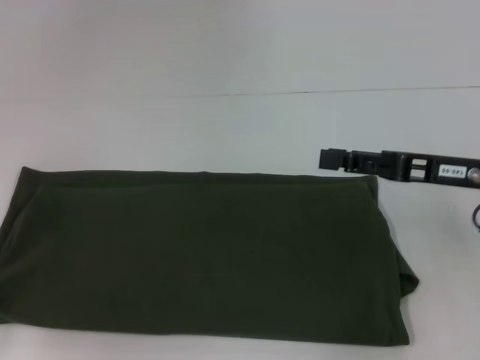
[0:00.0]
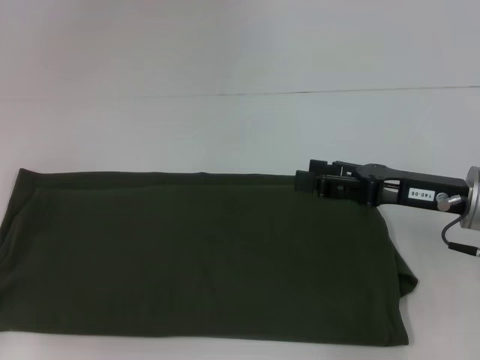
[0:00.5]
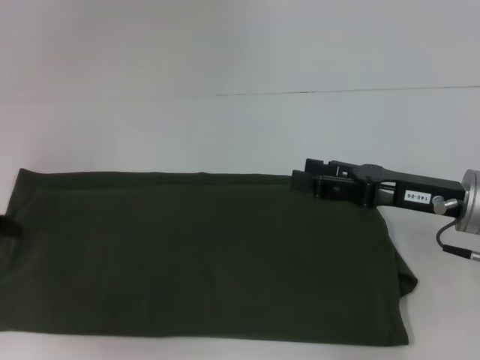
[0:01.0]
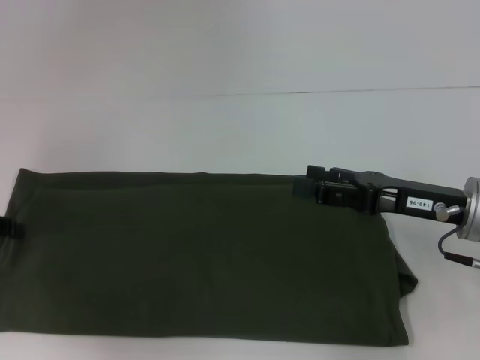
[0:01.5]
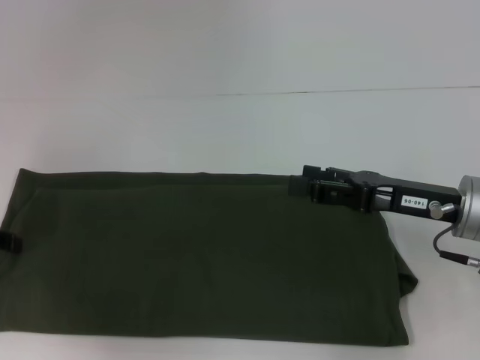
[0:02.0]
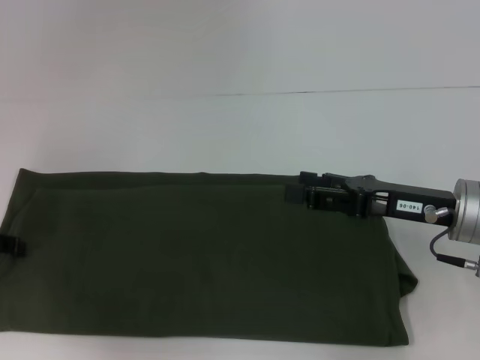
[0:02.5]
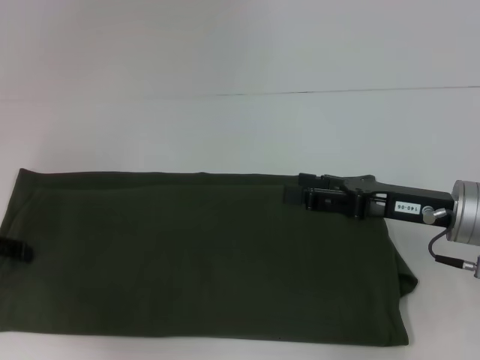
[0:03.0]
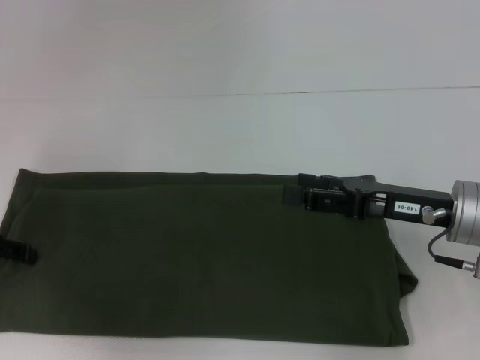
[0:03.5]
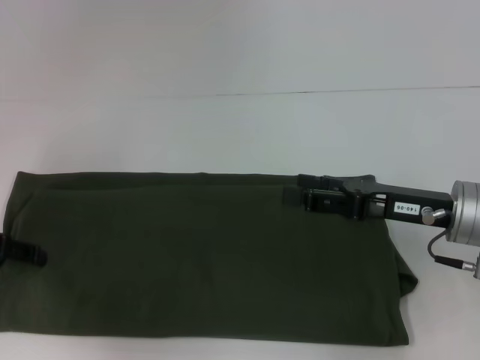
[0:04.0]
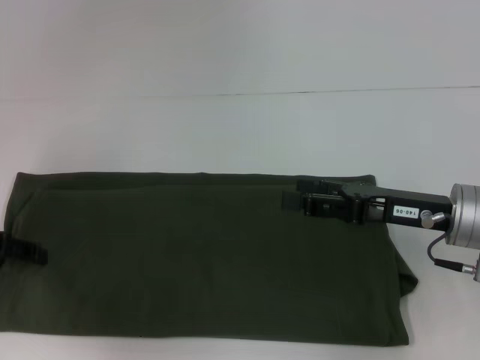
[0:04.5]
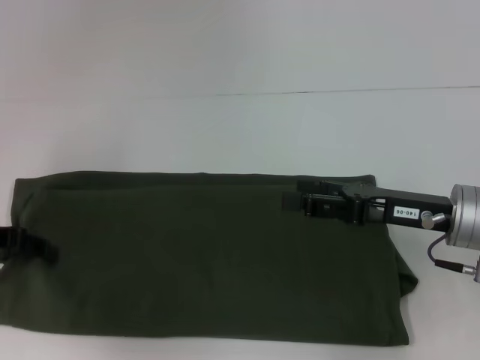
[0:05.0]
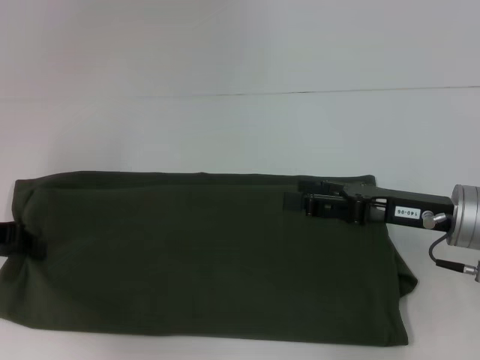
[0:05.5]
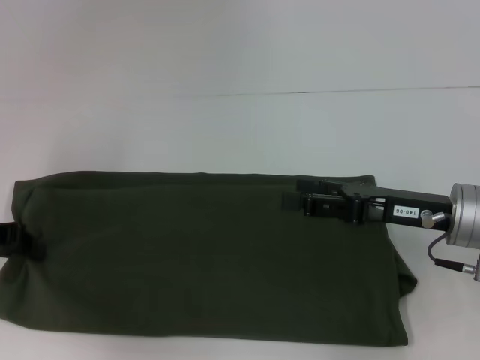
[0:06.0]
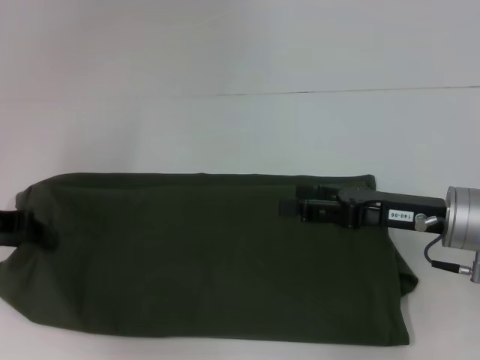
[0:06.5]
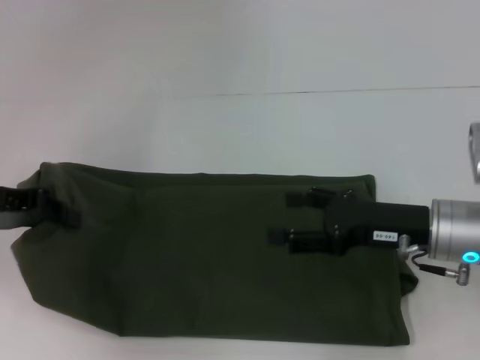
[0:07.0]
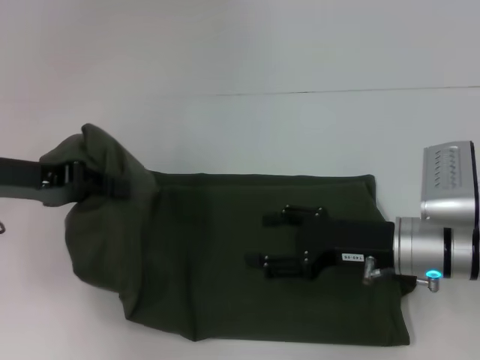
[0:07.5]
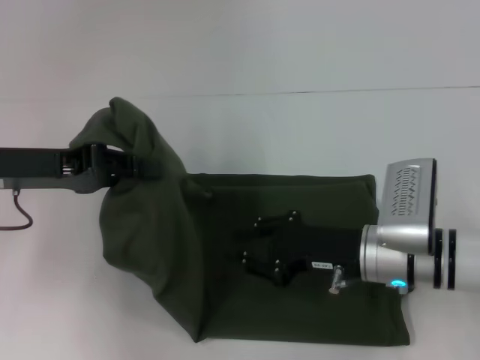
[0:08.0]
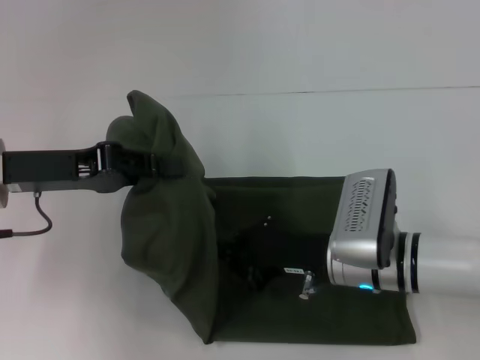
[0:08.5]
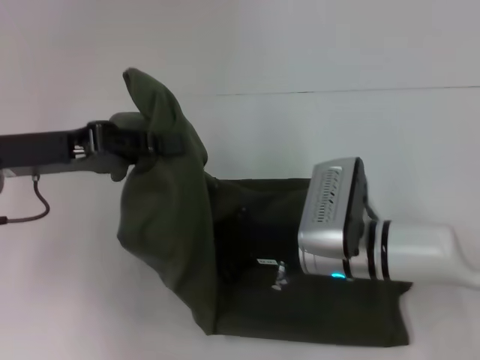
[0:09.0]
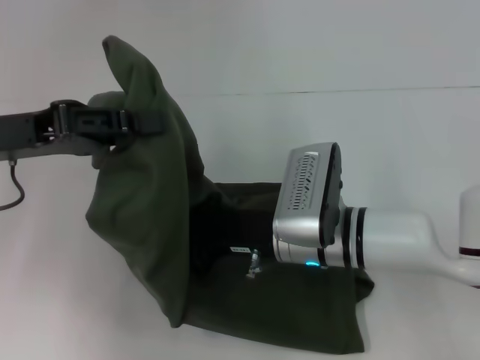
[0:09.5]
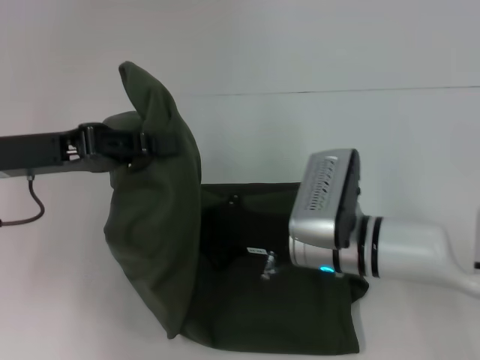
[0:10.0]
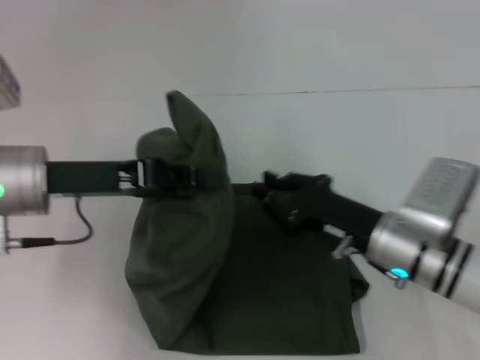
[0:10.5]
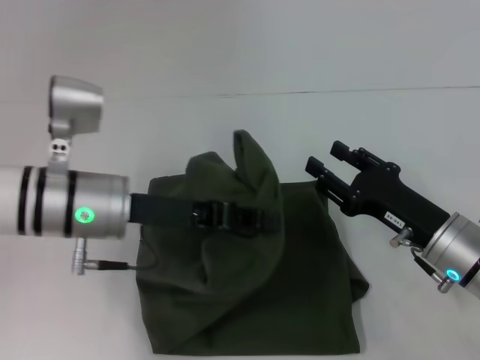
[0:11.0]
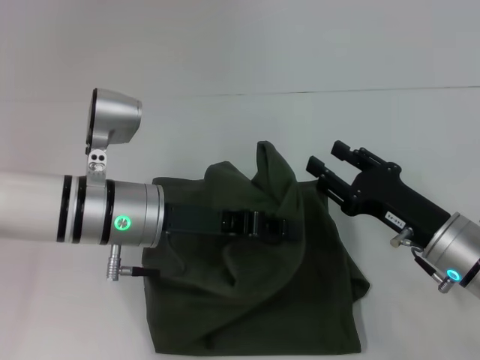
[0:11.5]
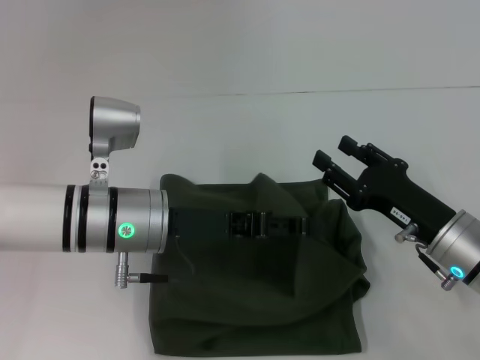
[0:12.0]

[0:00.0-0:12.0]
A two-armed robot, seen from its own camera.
0:00.0 to 0:02.0: The left gripper heads forward, covering approximately 5 cm, and opens.
0:02.0 to 0:04.0: The grippers make only small movements.
0:04.0 to 0:06.0: The left gripper closes its fingers.
0:06.0 to 0:08.0: The left gripper travels to the right by roughly 5 cm. The right gripper moves to the left and downward, about 10 cm, and closes up.
0:08.0 to 0:10.0: The right gripper travels to the left by roughly 5 cm, and closes.
0:10.0 to 0:12.0: The right gripper moves to the right, roughly 15 cm, and opens its fingers; the left gripper heads to the right and downward, covering approximately 15 cm.

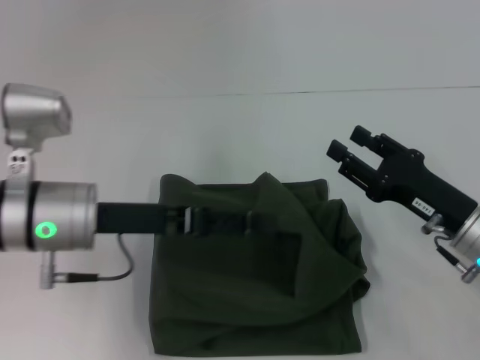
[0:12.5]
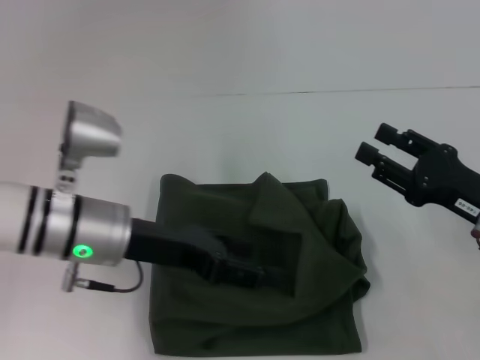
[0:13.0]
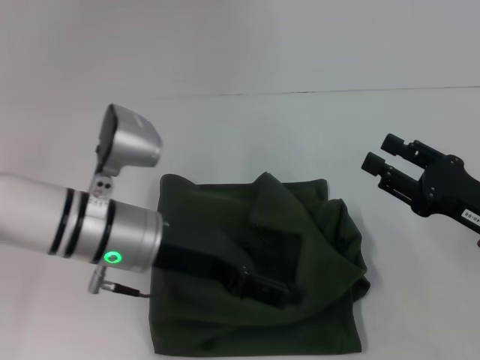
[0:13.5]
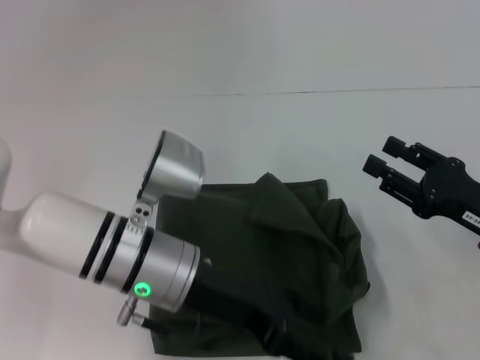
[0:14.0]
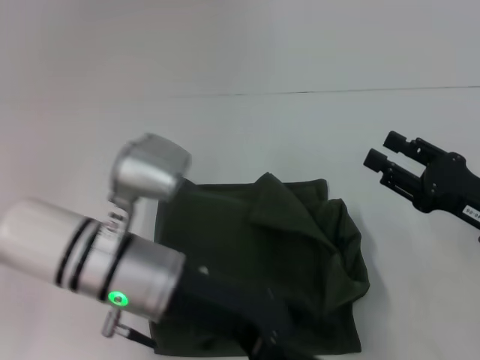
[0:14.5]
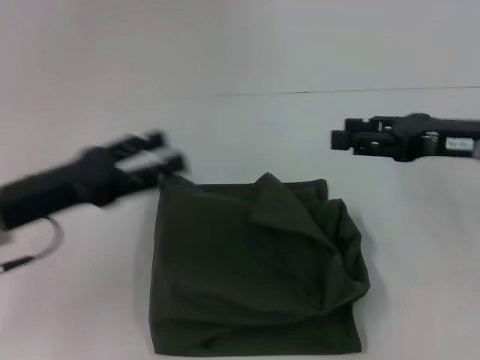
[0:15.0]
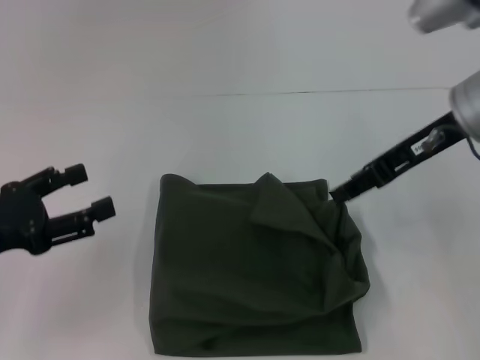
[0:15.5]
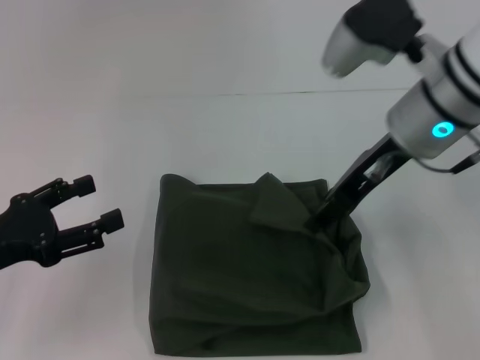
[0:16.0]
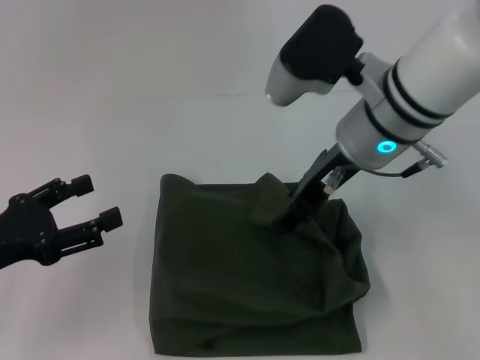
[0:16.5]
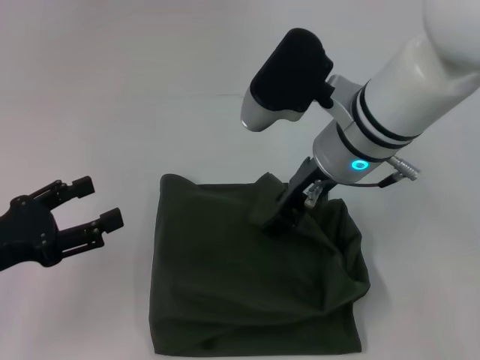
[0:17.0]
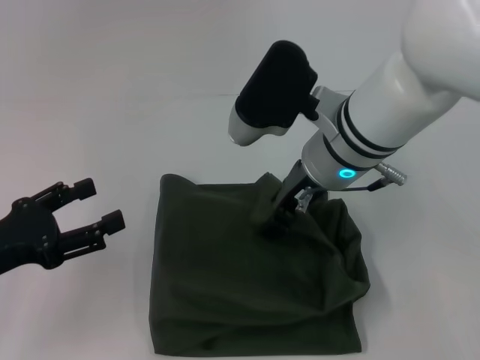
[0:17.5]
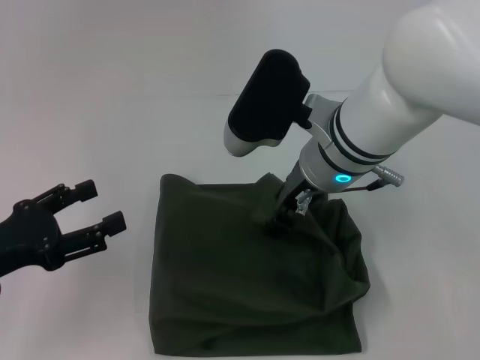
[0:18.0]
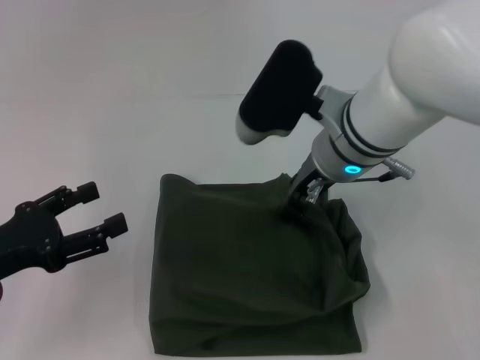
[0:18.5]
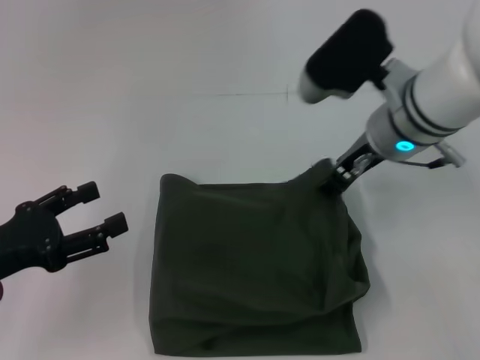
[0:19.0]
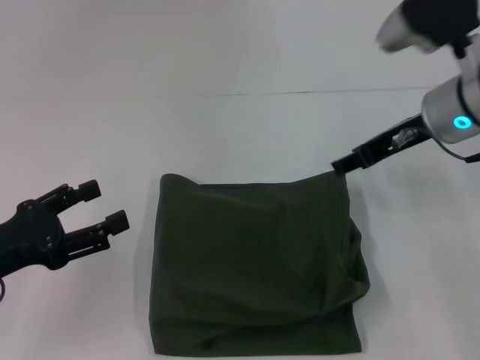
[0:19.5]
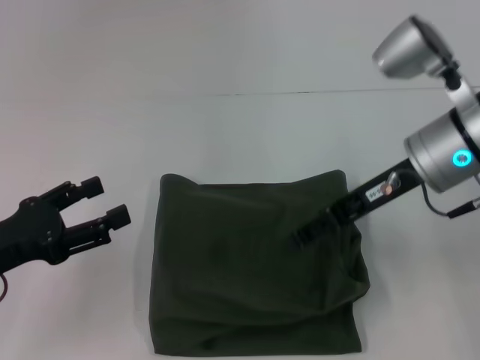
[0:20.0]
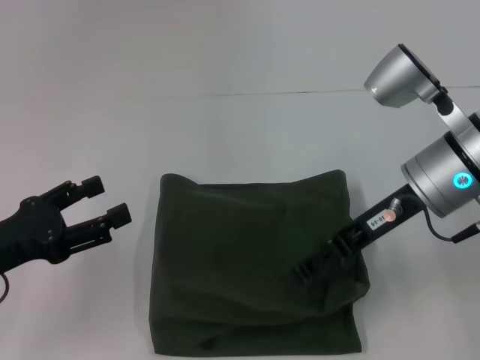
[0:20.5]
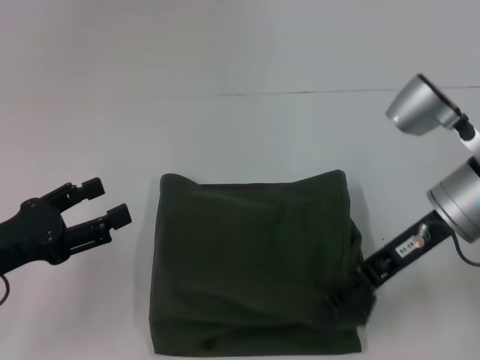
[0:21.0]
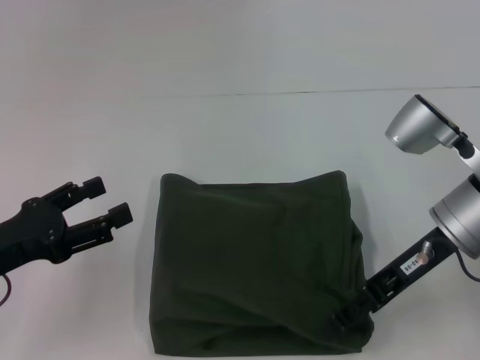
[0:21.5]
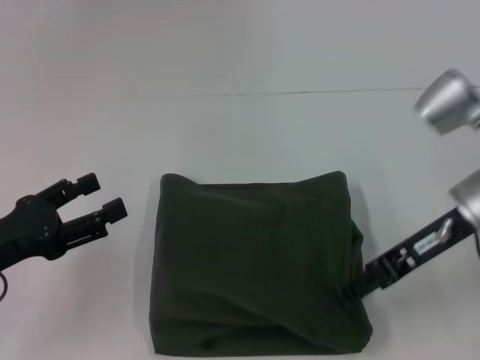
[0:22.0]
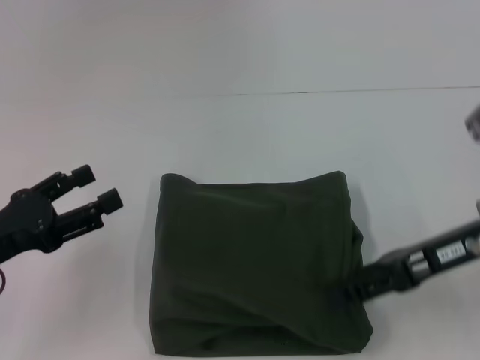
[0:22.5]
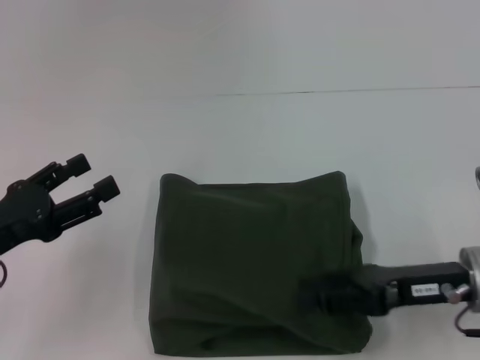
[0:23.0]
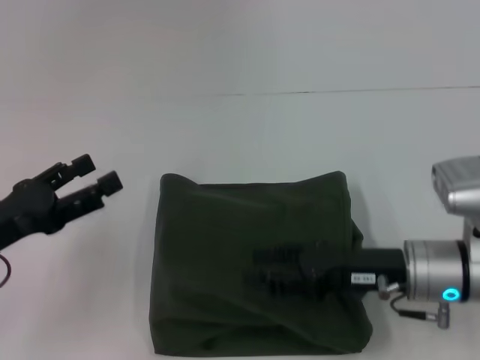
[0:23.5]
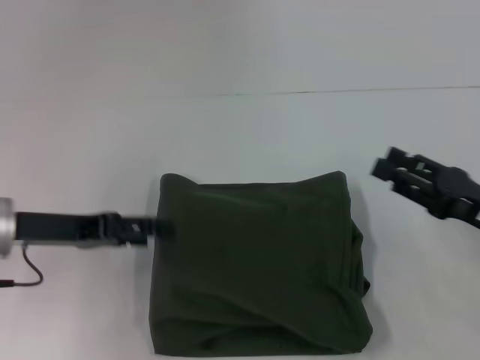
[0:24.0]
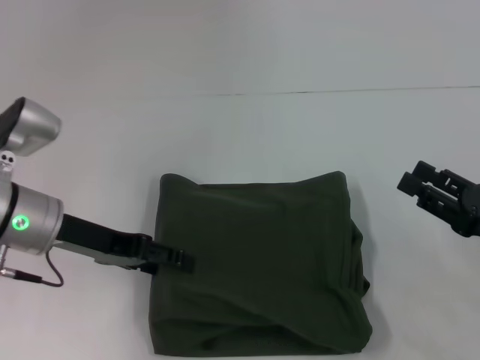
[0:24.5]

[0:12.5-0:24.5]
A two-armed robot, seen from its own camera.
Step, 0:12.5 to 0:19.5: Fold the clothes with your left hand.
0:12.5 to 0:14.5: The left gripper moves to the right, approximately 5 cm.
0:14.5 to 0:16.5: The right gripper shifts some 25 cm to the left, upward and forward. The left gripper heads to the left, covering about 20 cm.
0:16.5 to 0:18.5: The grippers stay close to where they were, moving slightly.
0:18.5 to 0:20.5: The right gripper moves to the right, approximately 10 cm.
0:20.5 to 0:22.5: The right gripper goes some 5 cm to the right.
0:22.5 to 0:24.5: The left gripper travels forward and to the right by approximately 10 cm. The right gripper travels downward, to the right and backward by some 10 cm.

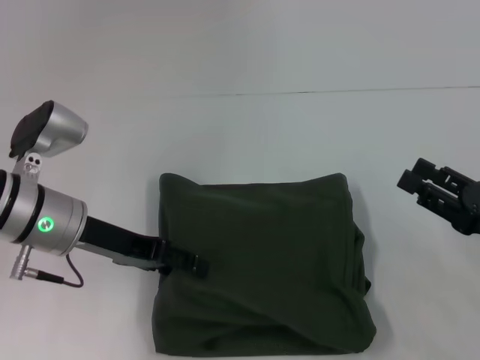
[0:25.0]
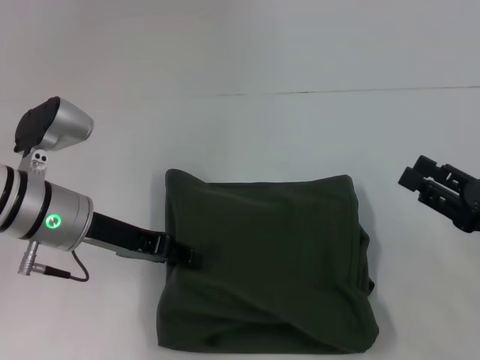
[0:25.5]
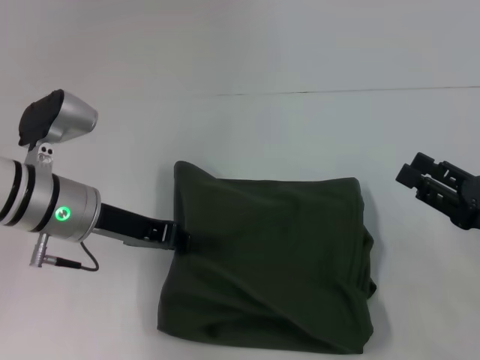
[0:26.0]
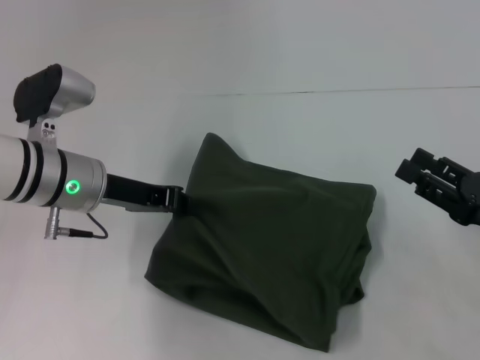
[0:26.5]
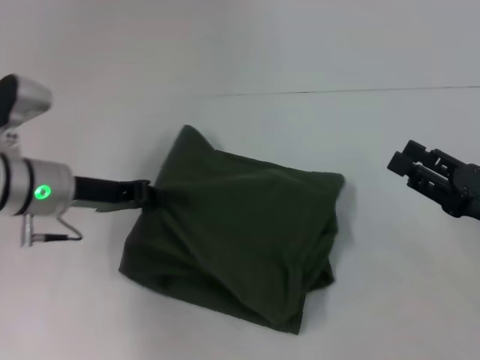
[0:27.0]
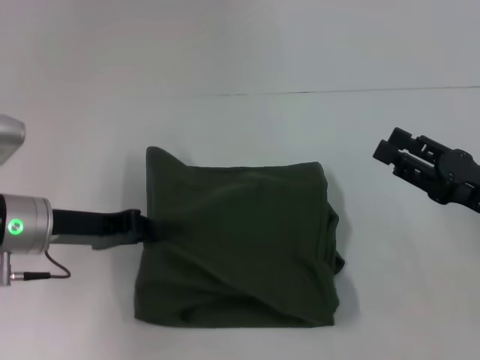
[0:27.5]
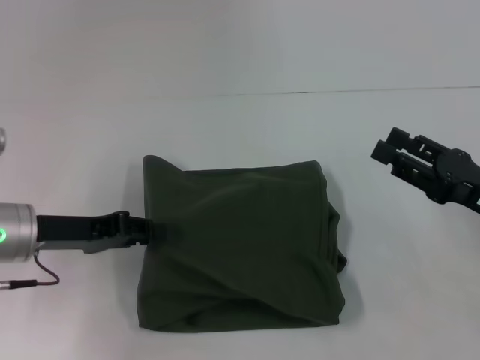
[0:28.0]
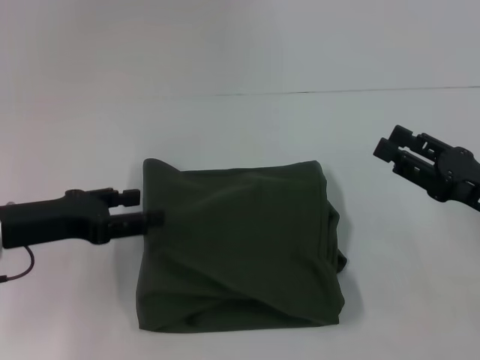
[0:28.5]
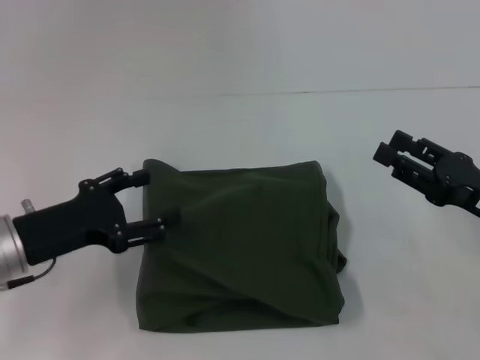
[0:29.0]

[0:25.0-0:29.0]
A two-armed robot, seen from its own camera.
0:25.0 to 0:27.0: The left gripper closes its fingers.
0:27.0 to 0:29.0: The left gripper heads backward, covering some 10 cm, and opens.
